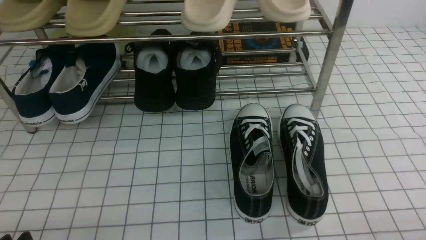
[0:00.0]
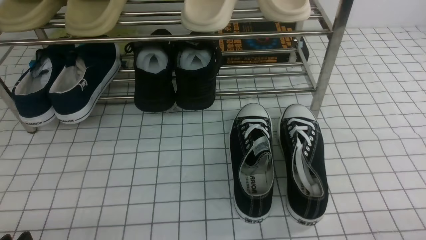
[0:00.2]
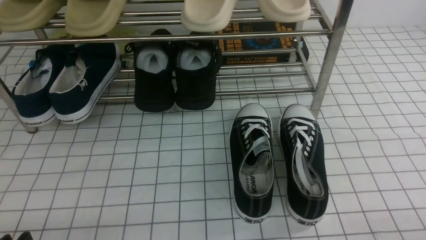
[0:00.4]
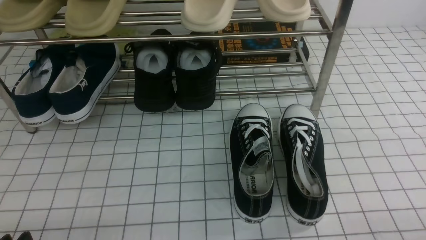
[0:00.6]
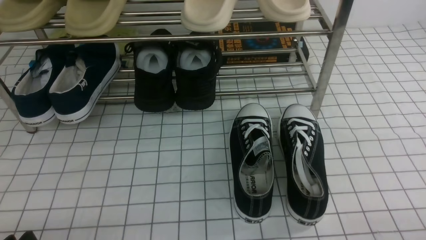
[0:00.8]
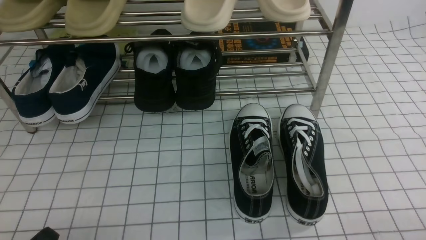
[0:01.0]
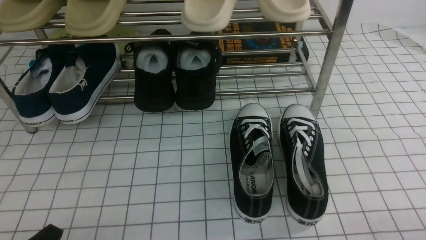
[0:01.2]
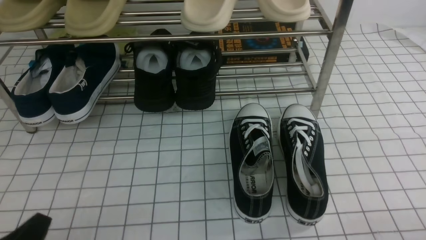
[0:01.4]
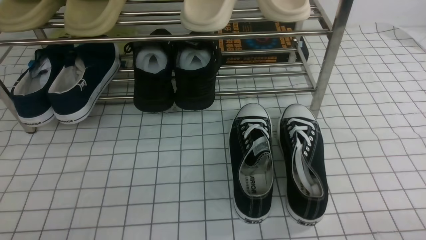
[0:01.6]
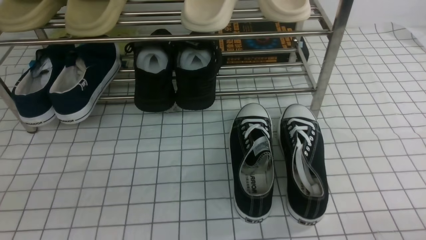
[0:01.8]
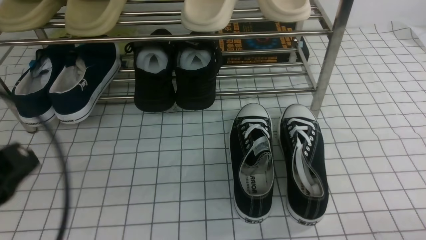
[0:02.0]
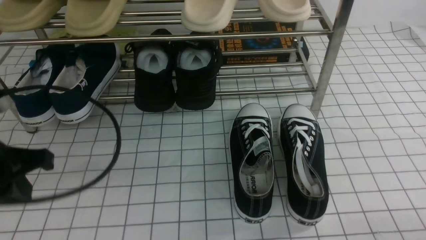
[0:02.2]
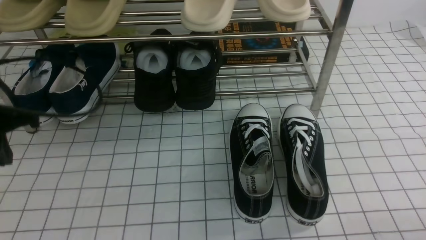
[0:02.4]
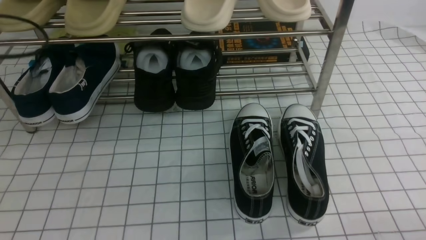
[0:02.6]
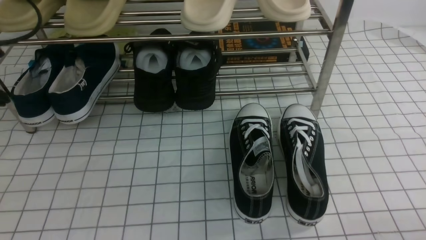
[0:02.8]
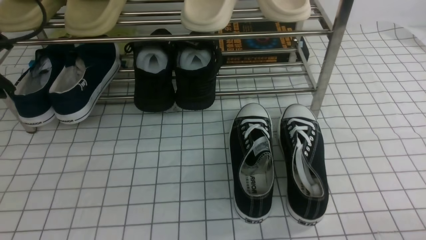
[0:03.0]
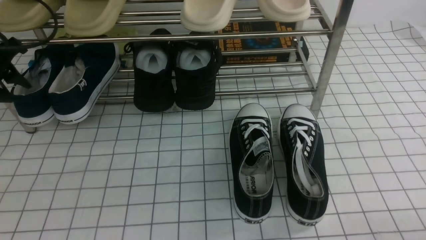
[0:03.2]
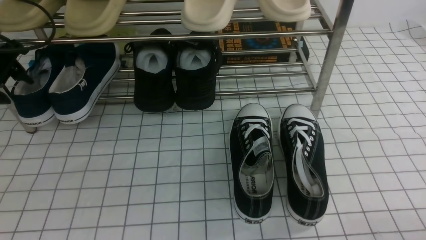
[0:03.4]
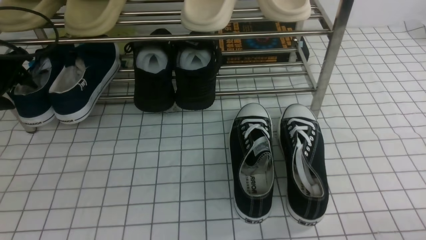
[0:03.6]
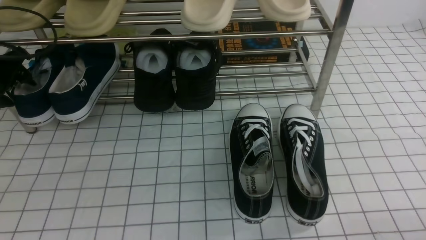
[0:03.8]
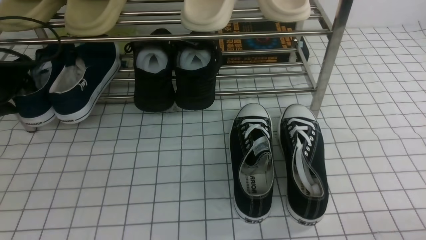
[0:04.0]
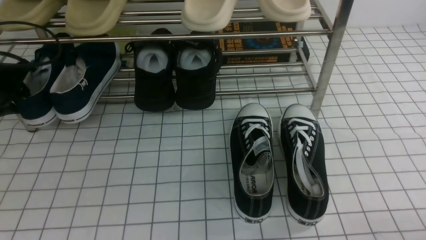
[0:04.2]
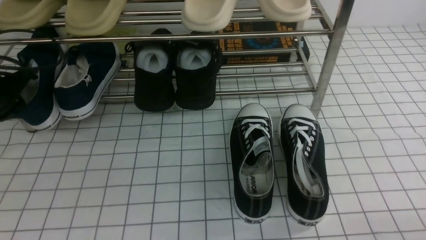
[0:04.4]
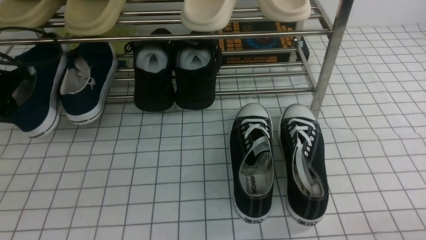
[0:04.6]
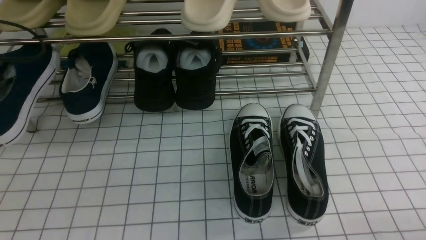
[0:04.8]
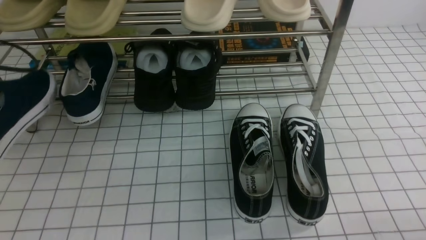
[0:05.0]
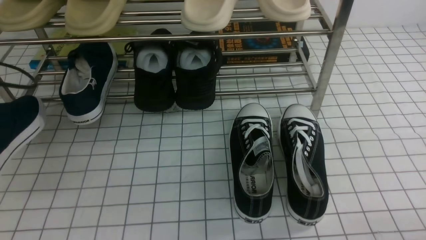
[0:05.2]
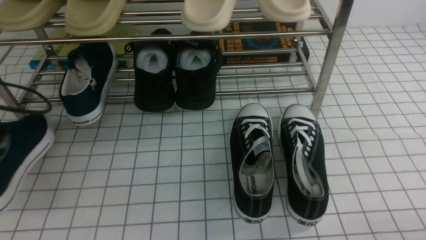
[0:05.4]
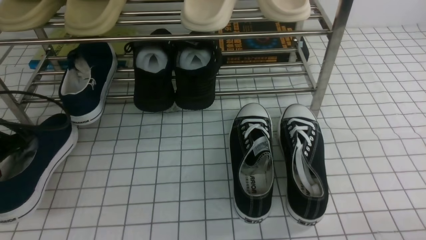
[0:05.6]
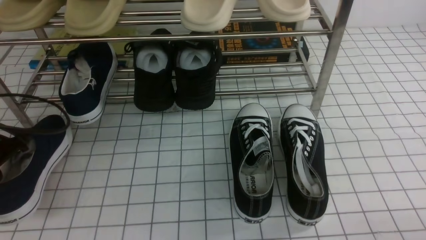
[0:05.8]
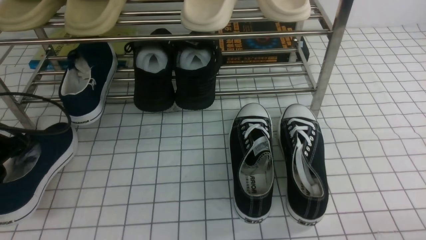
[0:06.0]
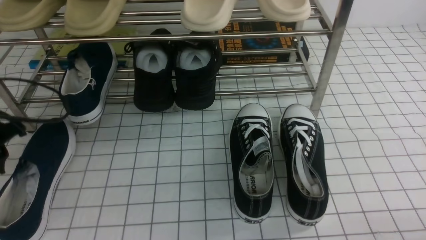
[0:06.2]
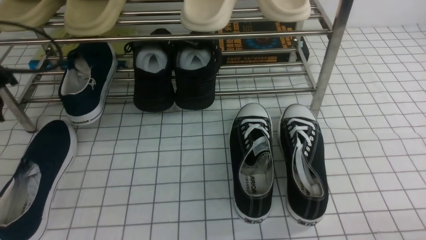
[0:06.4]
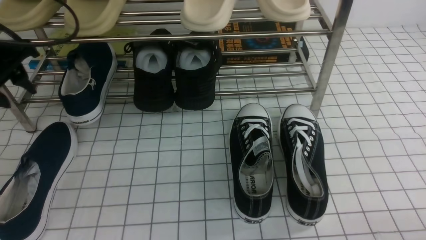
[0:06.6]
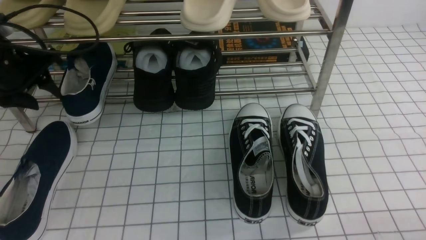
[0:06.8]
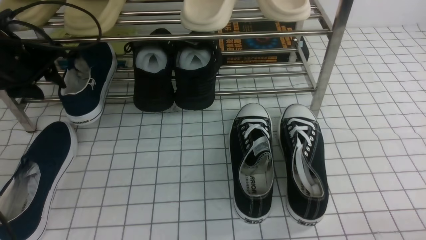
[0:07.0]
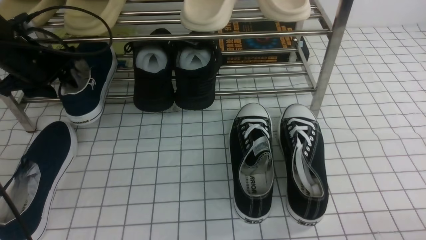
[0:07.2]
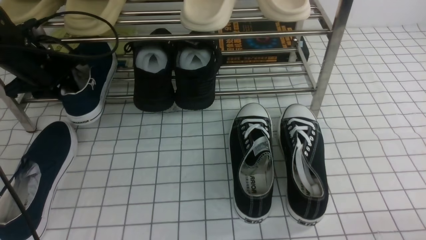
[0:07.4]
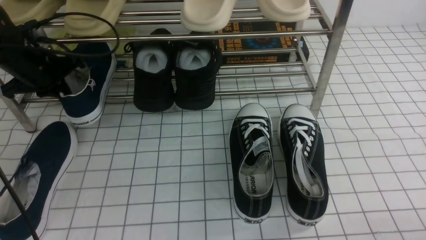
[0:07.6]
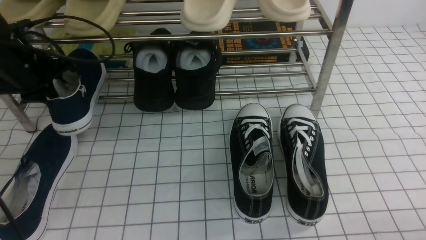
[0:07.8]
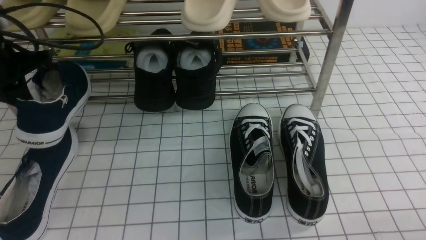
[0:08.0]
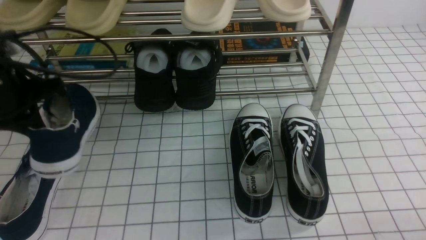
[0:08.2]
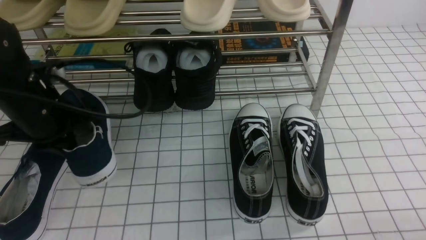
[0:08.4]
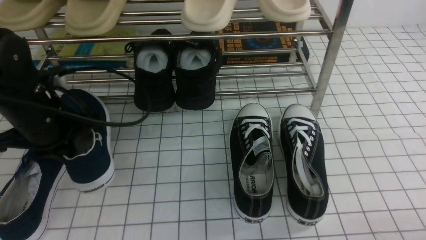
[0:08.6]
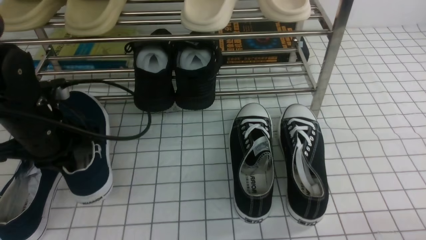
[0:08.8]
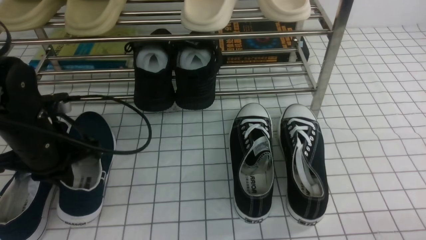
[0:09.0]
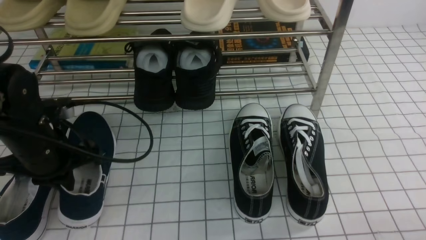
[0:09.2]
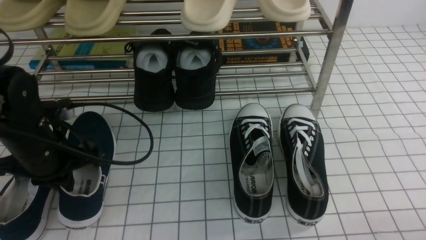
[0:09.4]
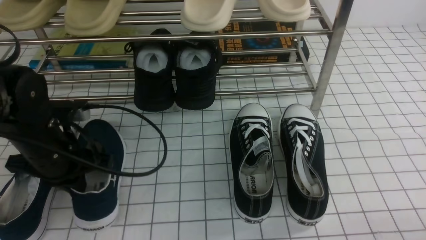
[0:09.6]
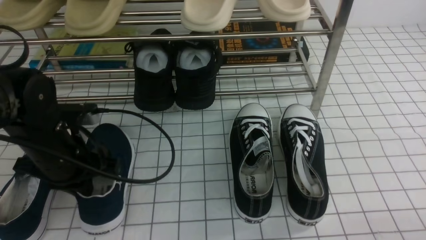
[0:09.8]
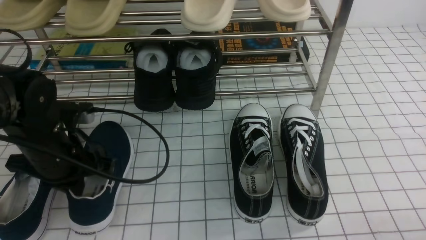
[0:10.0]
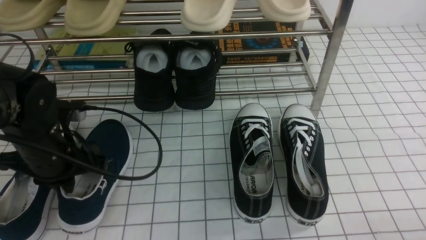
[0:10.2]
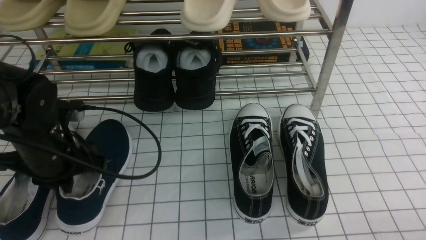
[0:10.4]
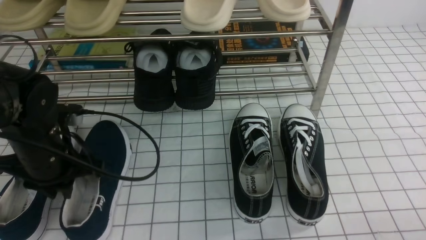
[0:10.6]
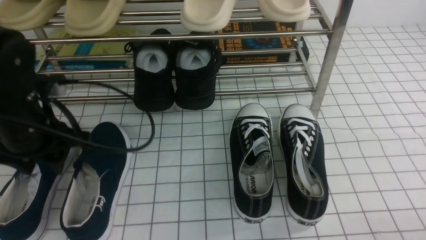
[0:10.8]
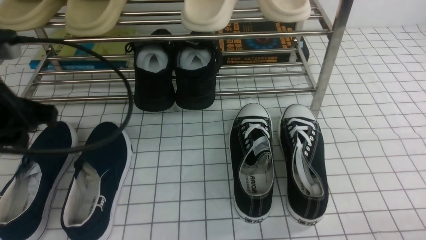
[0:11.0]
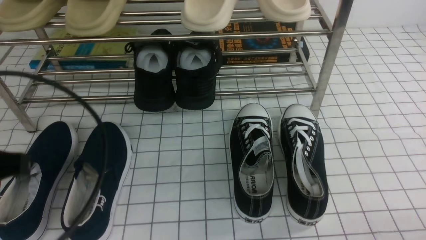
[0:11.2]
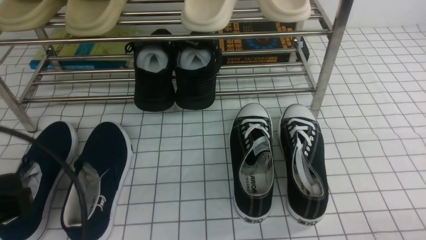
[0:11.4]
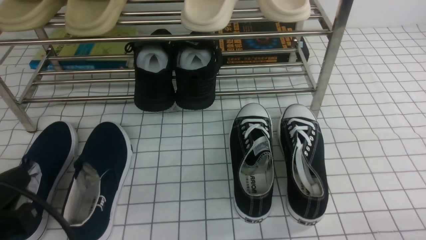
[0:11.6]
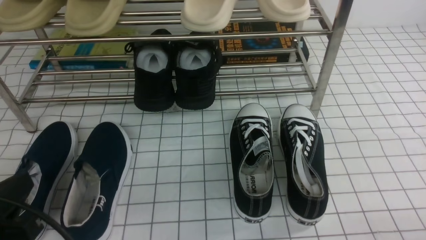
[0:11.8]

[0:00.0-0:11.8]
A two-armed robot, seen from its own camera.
Step, 0:00.0 to 0:04.2: use the left arm to clamp a shoe on the left side of the shoe rack.
Step, 0:04.4 to 0:06.2: Use your left arm to remove the clamped shoe from the shoe rack and put it down.
Step, 0:06.4 to 0:07.4: use the left arm to clamp a shoe on the left side of the shoe rack.
Step, 0:07.6 to 0:10.6: Use your left arm to remove the clamped shoe from the shoe rack and put it down.
0:01.4 to 0:03.0: The left gripper is displaced forward and upward by roughly 30 cm, and closes and opens again.
0:03.0 to 0:04.4: The left gripper heads downward, covering about 5 cm, and opens, then closes once more.
0:04.4 to 0:06.0: The left gripper shifts approximately 10 cm backward.
0:06.0 to 0:07.4: The left gripper moves forward, approximately 15 cm.
0:07.4 to 0:08.8: The left gripper moves backward and to the right, about 15 cm, and closes its fingers.
0:08.8 to 0:10.4: There are only small adjustments of the grippers.
0:10.4 to 0:11.8: The left gripper heads backward, covering roughly 20 cm, and opens, then closes once more.

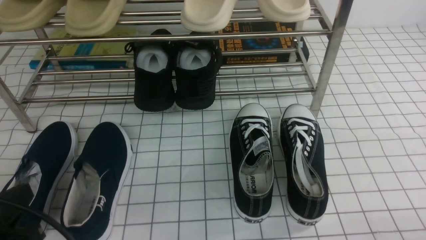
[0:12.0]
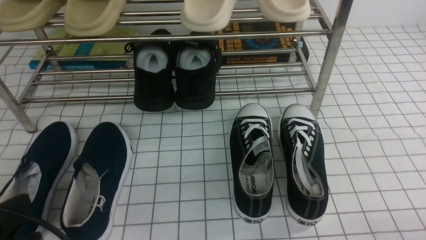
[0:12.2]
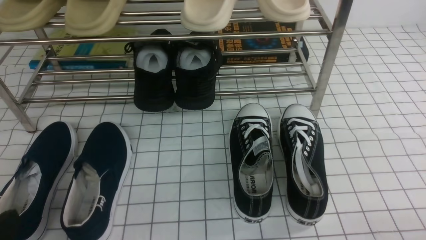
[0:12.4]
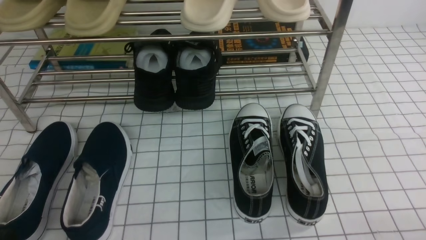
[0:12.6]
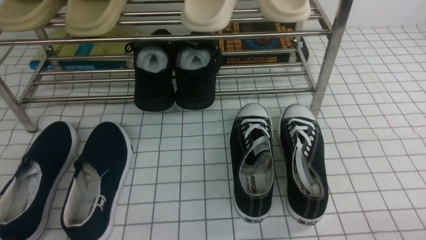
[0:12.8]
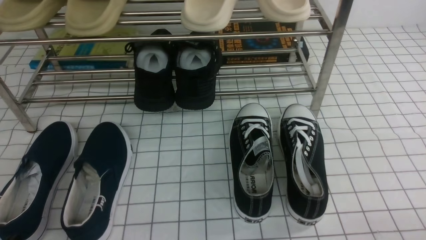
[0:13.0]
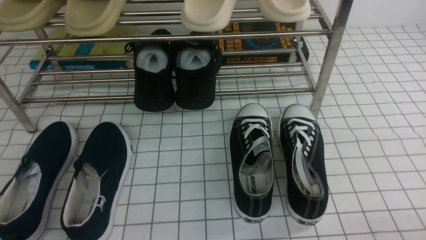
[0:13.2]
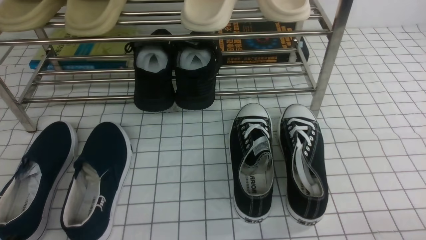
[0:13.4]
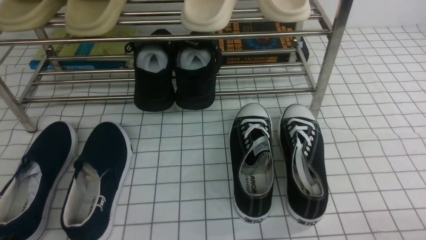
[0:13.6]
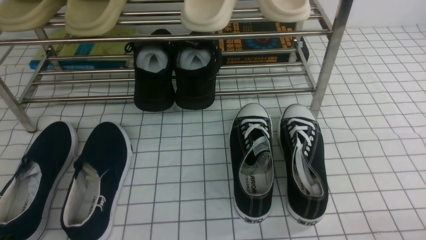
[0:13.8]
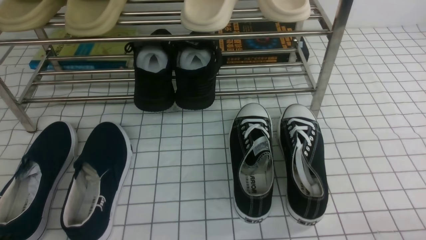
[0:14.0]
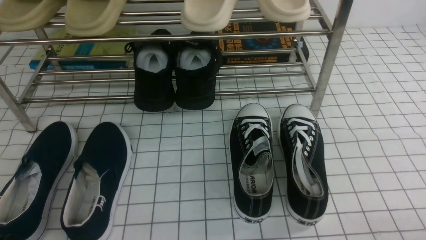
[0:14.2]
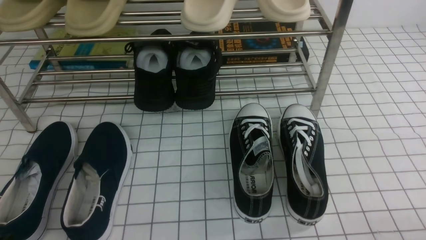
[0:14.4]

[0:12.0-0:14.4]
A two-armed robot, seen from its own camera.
0:12.0 to 0:13.2: The left gripper travels downward by some 10 cm.

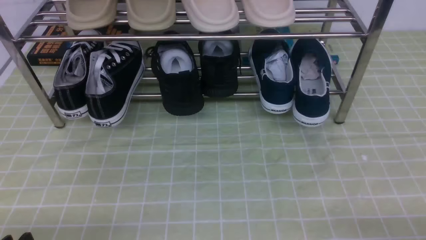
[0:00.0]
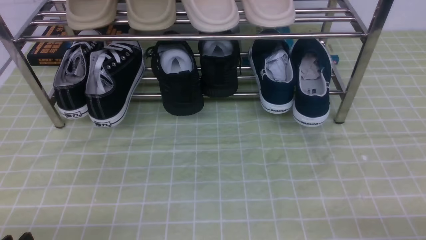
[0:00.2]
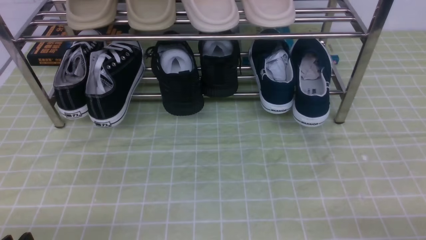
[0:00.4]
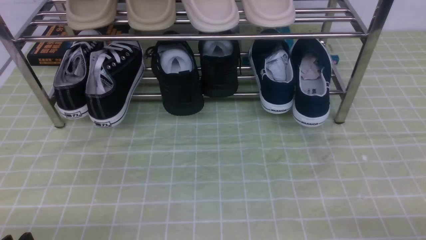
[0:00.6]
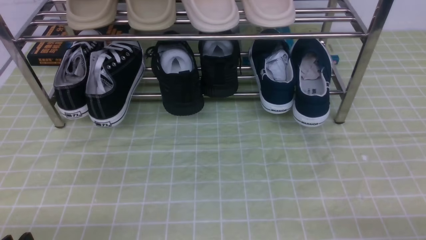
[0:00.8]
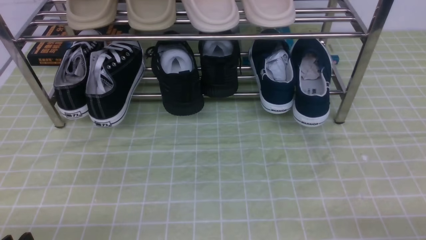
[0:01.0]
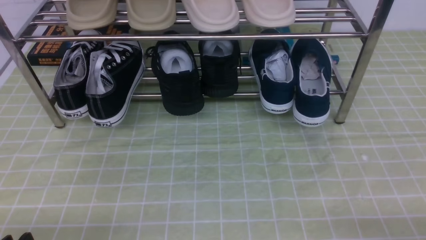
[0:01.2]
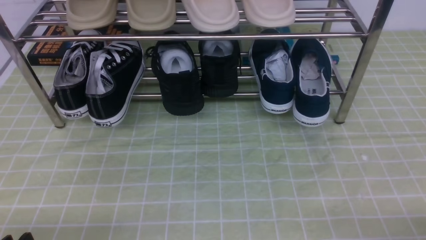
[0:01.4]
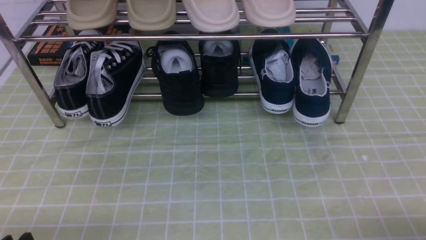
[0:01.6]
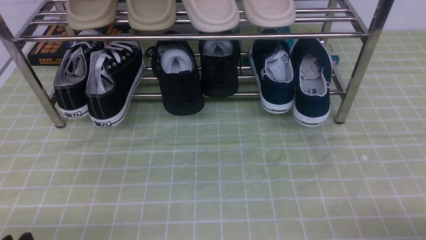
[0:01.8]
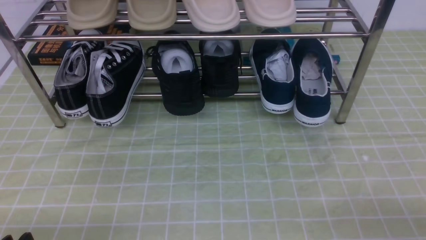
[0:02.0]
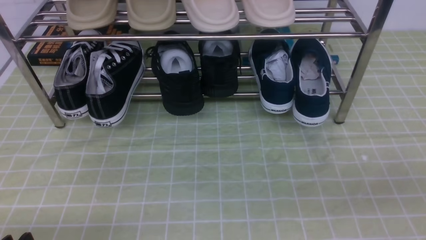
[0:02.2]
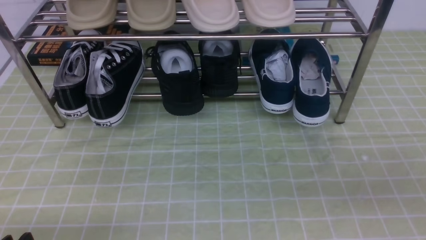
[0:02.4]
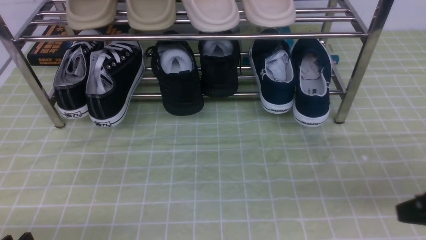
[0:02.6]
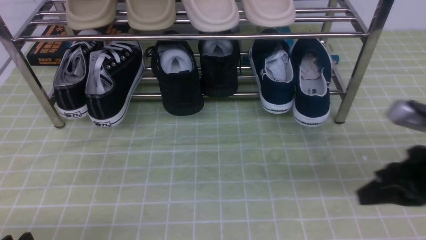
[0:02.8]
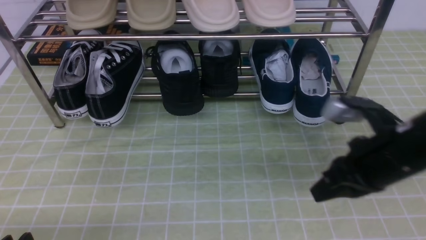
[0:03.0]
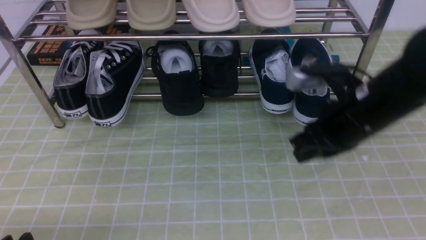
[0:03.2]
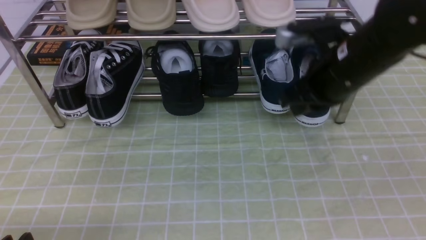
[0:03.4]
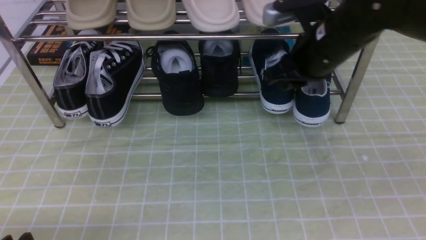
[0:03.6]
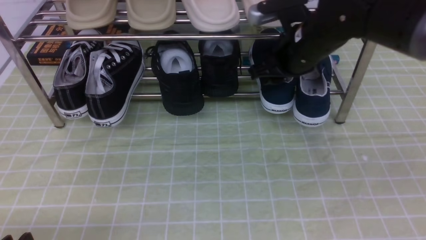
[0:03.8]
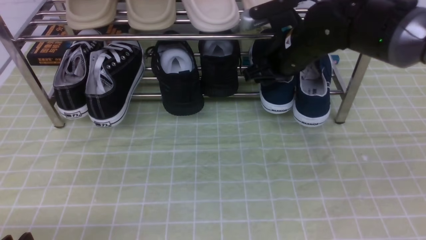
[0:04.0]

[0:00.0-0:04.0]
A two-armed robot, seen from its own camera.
0:01.4 to 0:02.6: The right gripper shifts about 15 cm upward and forward, and closes its fingers.
0:02.6 to 0:04.0: The right gripper shifts about 30 cm forward and to the left, and opens up.
